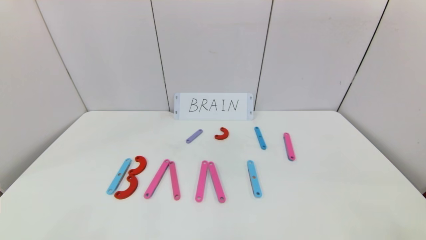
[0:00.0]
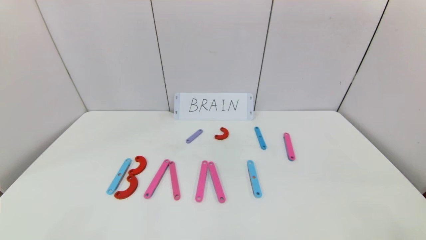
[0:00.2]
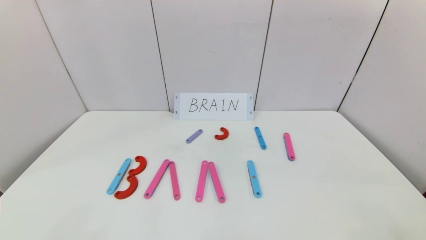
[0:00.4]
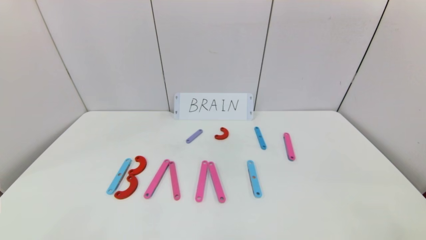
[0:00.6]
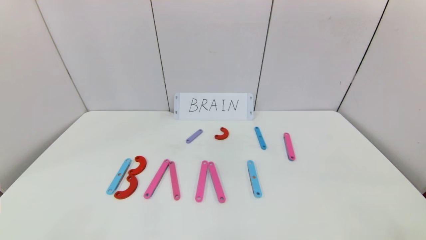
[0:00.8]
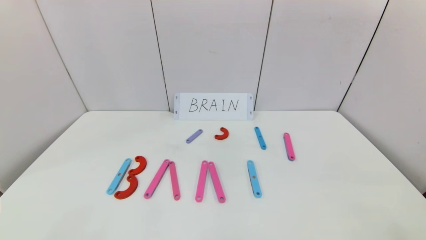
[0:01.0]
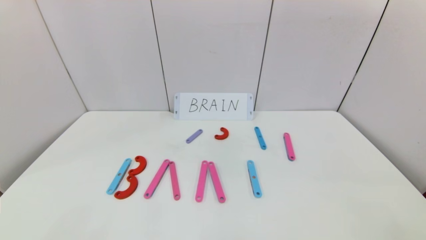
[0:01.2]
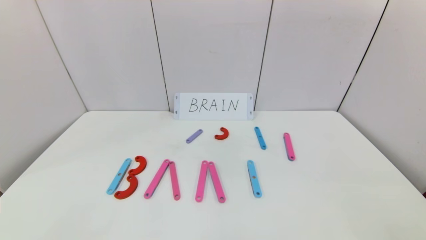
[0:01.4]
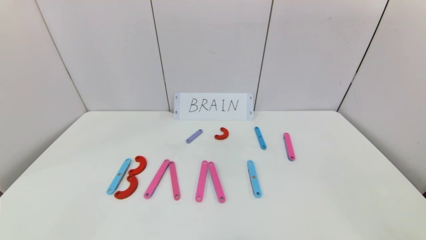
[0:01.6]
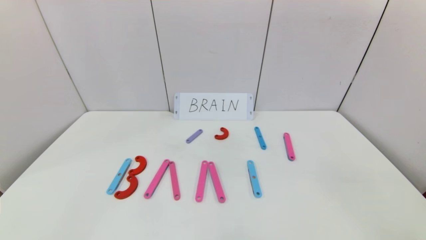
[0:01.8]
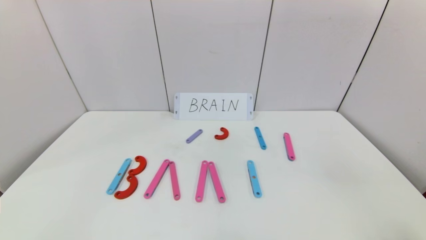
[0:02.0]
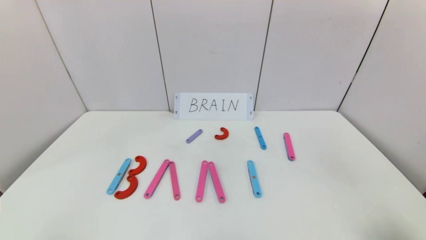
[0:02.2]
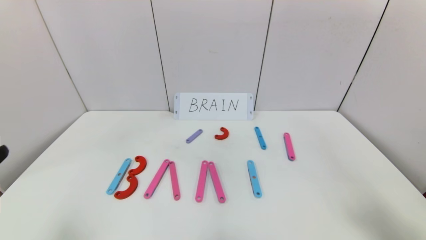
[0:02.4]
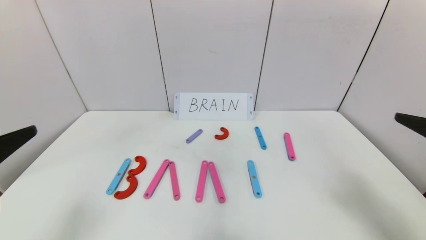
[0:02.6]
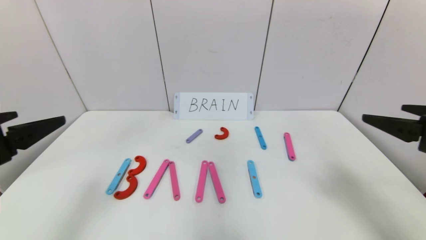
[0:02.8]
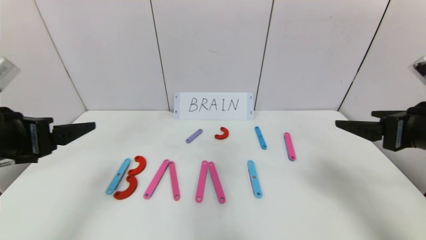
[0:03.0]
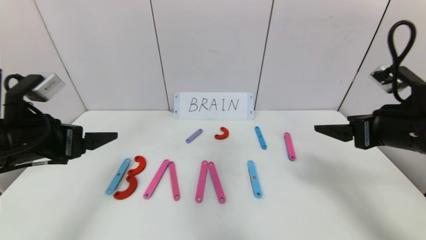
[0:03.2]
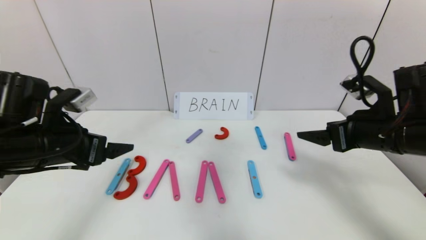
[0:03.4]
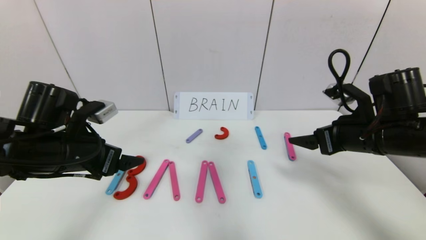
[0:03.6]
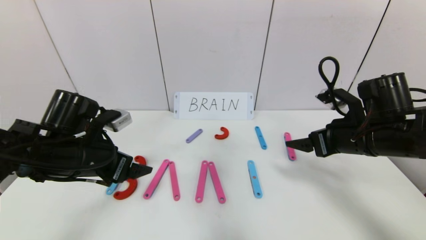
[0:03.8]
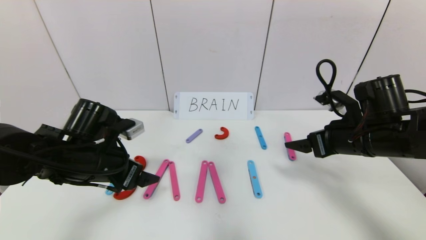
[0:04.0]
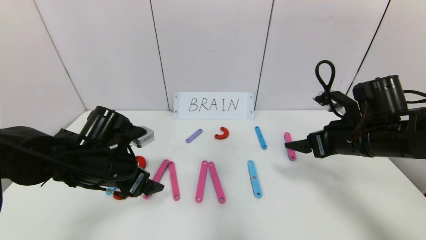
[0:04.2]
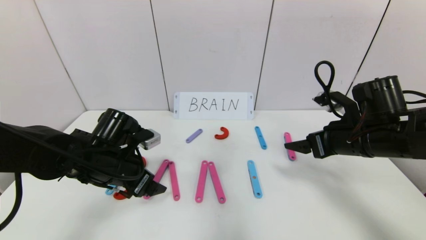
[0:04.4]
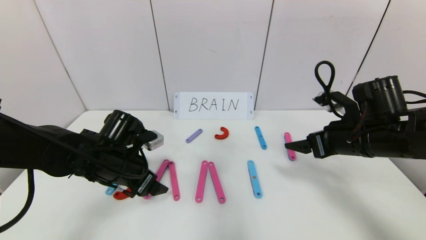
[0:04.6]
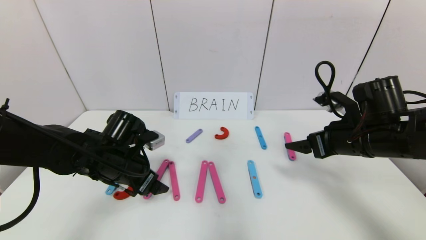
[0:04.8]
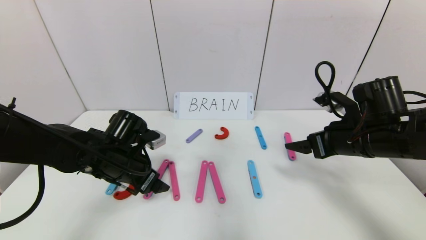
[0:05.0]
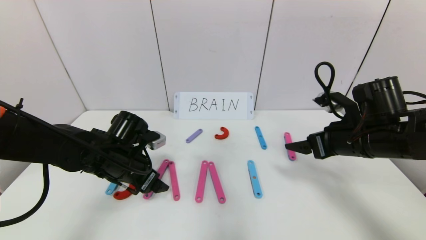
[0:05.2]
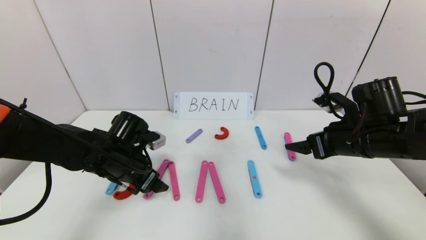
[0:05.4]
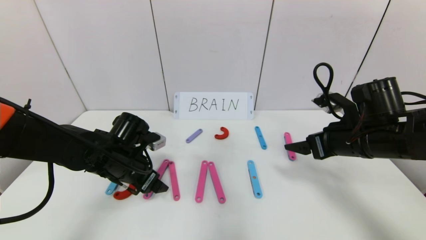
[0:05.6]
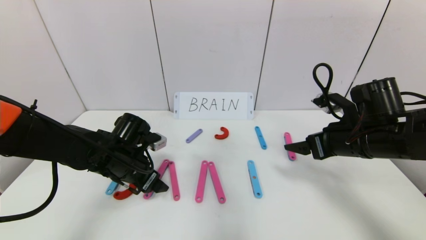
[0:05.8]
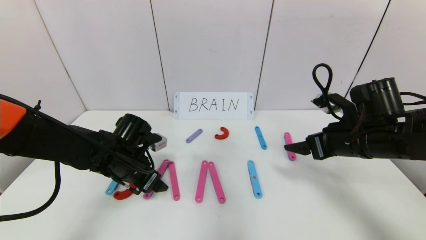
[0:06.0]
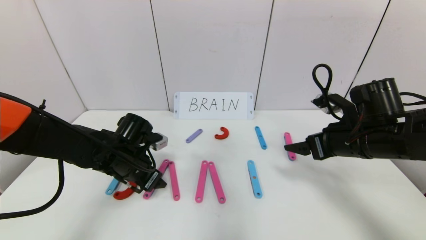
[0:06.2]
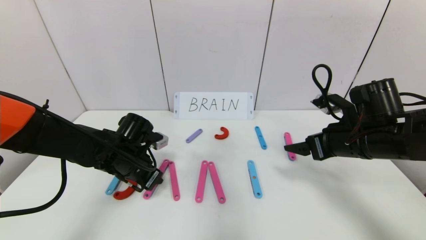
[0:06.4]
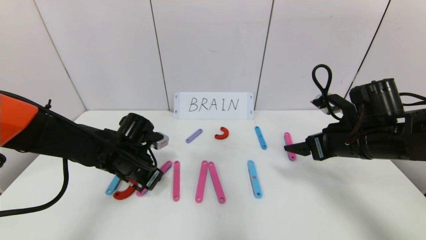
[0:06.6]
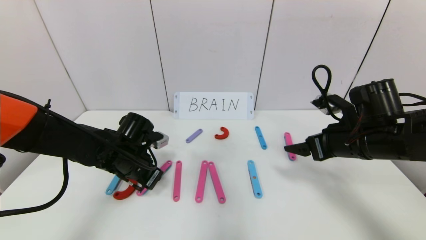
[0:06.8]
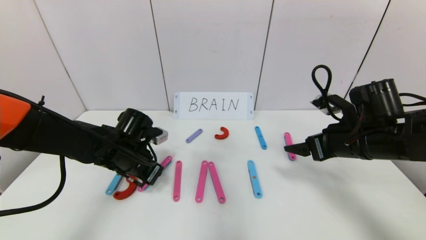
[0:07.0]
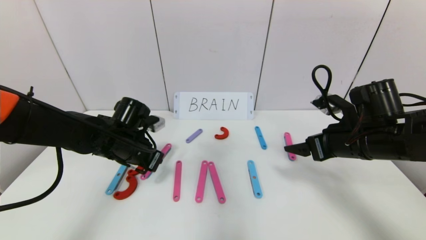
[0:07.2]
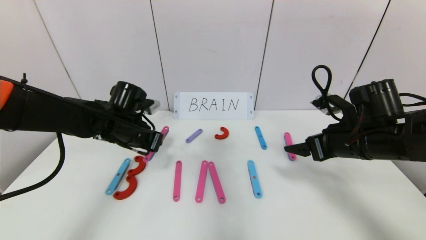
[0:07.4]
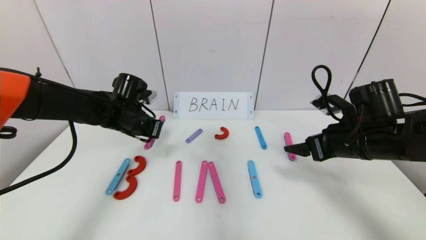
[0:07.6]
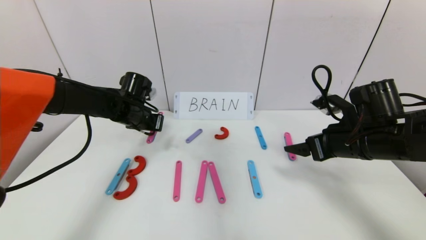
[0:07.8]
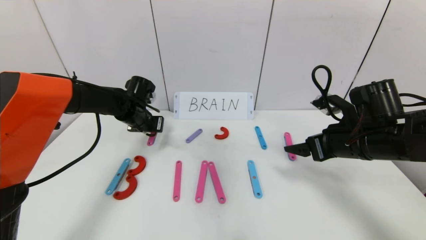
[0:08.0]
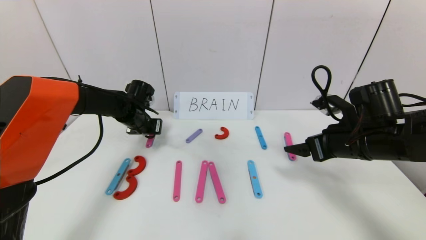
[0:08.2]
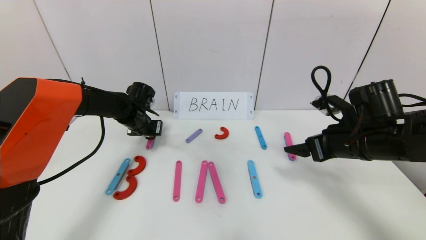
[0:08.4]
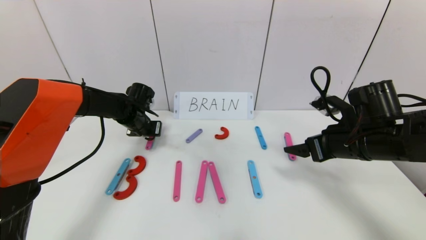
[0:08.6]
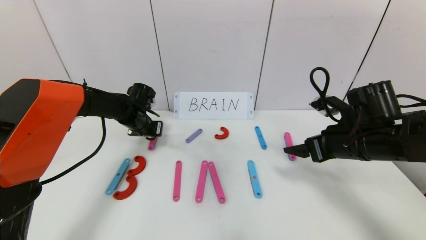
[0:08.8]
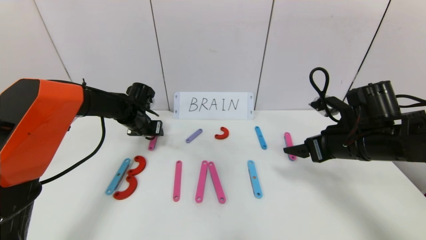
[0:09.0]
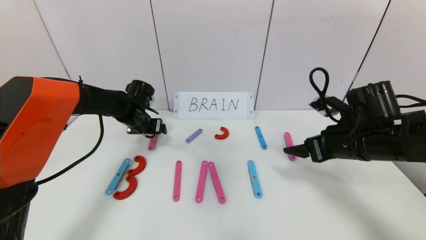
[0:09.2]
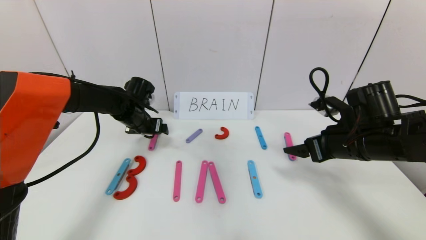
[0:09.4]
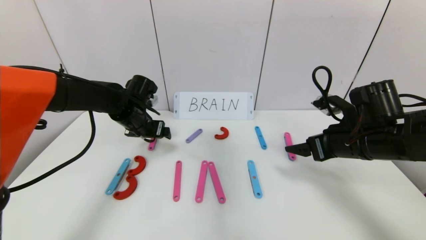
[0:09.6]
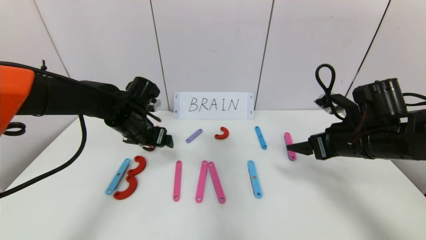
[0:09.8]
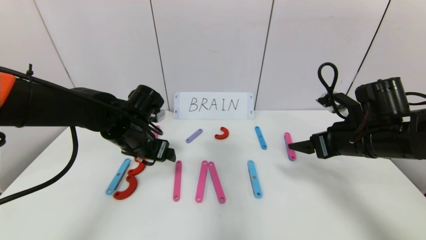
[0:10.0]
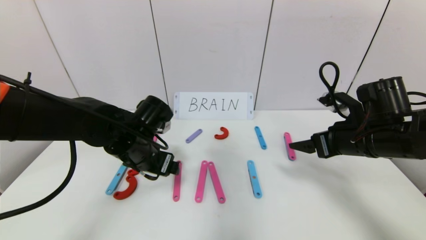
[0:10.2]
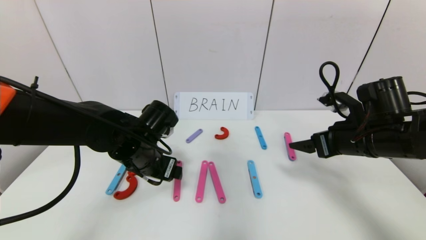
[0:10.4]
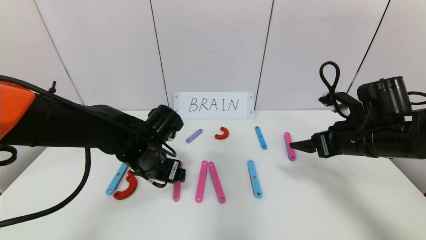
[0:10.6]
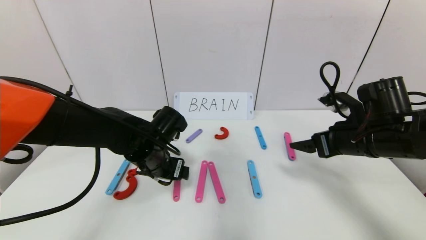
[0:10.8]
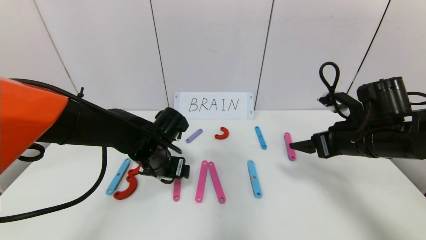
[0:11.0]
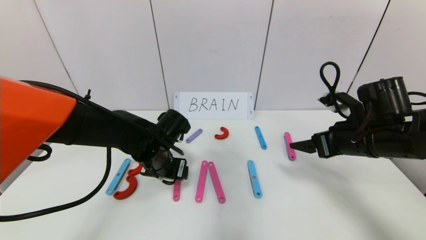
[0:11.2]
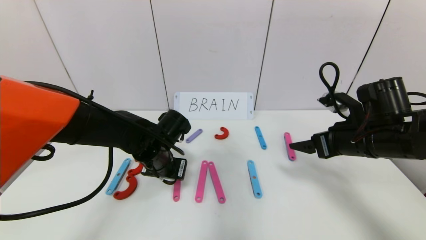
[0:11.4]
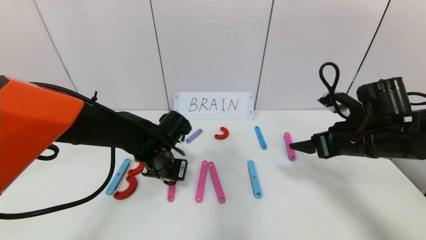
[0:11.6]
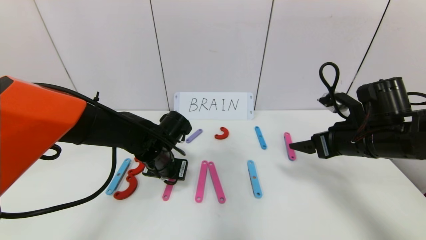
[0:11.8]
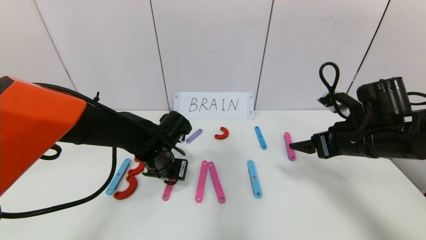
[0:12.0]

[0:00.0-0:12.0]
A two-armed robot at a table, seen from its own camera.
Task of the whole recording: rearrange the word baai as brain.
0:01.6 to 0:03.0: Both grippers move forward and upward, approximately 25 cm.
0:03.0 to 0:04.4: The left gripper is displaced downward, forward and to the right by some 20 cm. The right gripper is displaced forward and downward by roughly 10 cm.
0:04.4 to 0:06.0: The grippers move only a little.
0:06.0 to 0:07.6: The left gripper is displaced forward and upward by about 10 cm, and closes.
0:07.6 to 0:09.0: The left gripper moves forward, roughly 5 cm, and opens.
0:09.0 to 0:10.4: The left gripper shifts roughly 20 cm backward and to the right, and opens its fingers.
0:10.4 to 0:12.0: The left gripper changes place by about 5 cm, and closes its fingers.

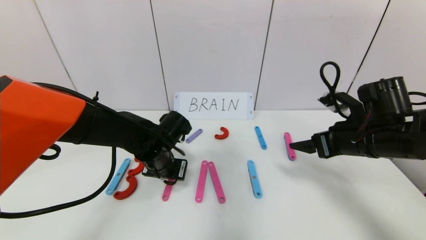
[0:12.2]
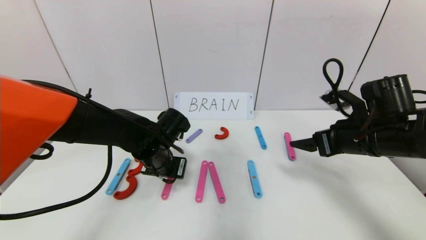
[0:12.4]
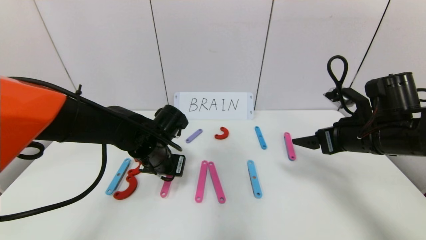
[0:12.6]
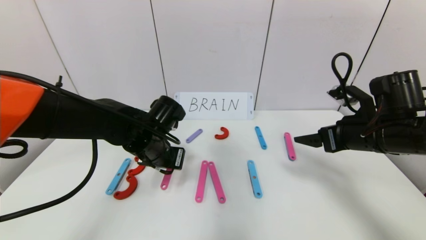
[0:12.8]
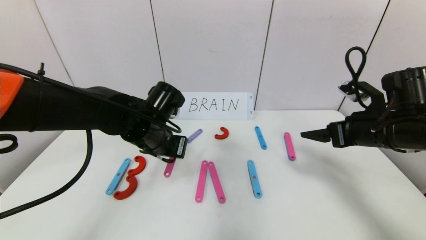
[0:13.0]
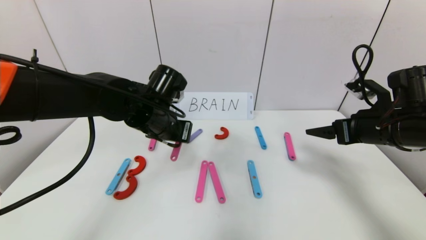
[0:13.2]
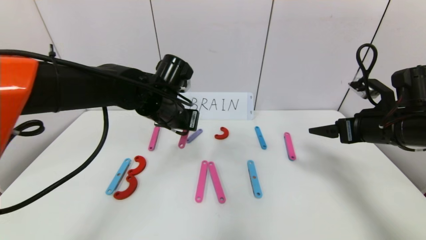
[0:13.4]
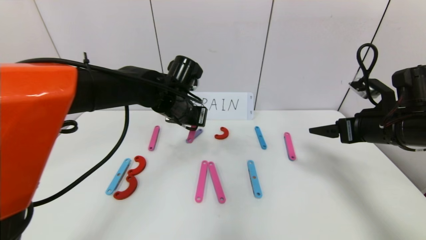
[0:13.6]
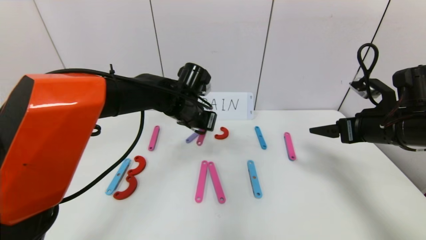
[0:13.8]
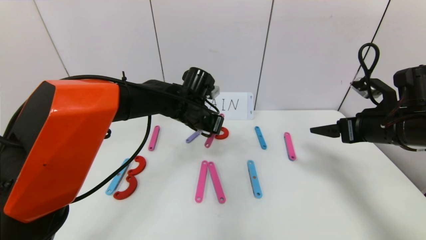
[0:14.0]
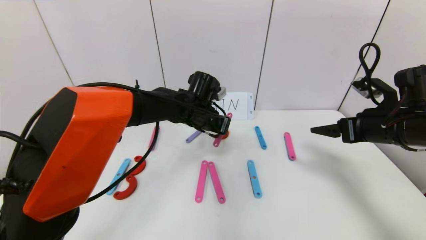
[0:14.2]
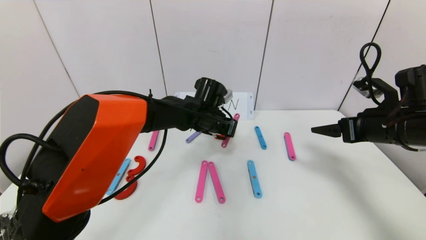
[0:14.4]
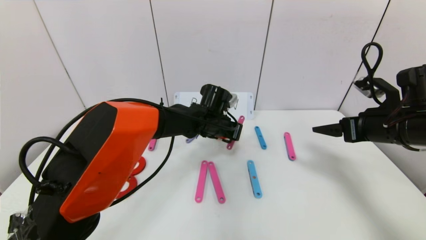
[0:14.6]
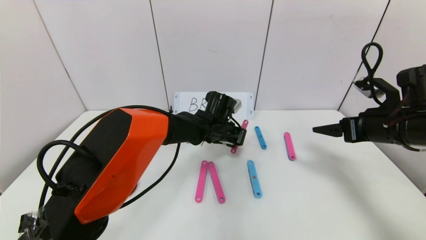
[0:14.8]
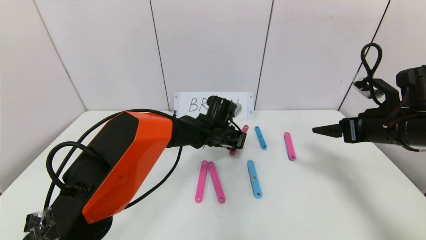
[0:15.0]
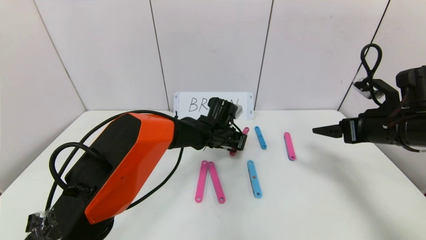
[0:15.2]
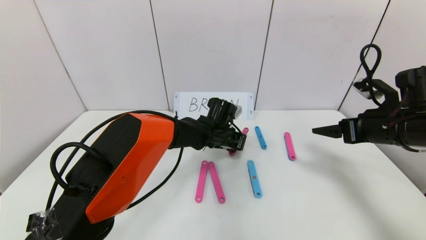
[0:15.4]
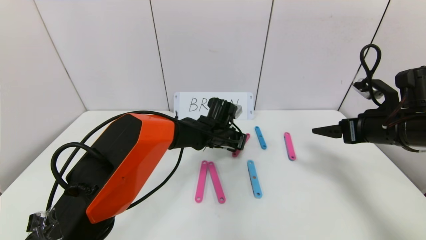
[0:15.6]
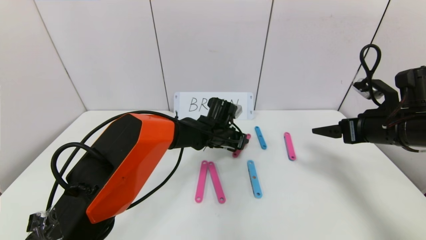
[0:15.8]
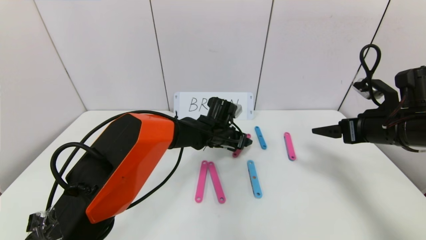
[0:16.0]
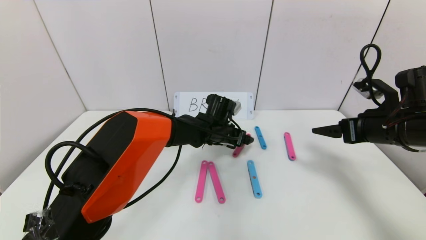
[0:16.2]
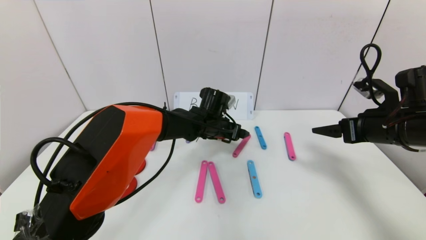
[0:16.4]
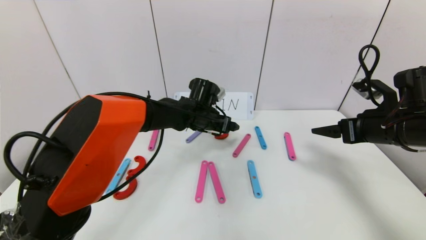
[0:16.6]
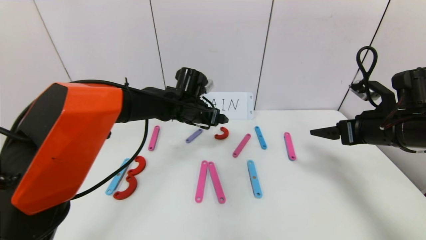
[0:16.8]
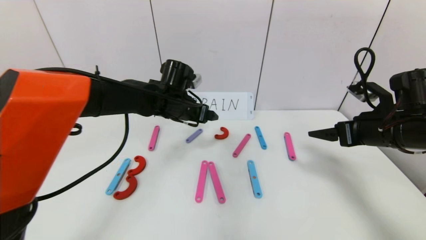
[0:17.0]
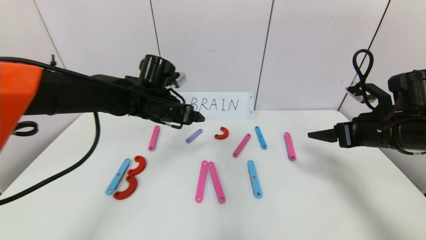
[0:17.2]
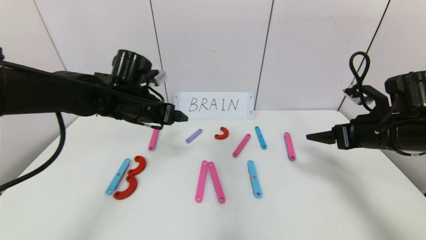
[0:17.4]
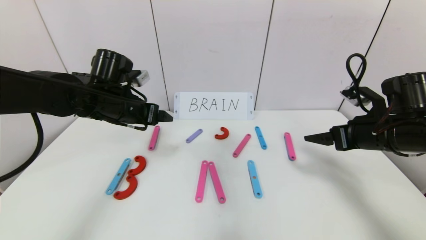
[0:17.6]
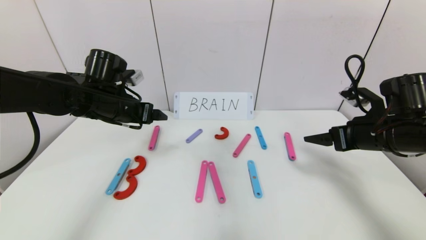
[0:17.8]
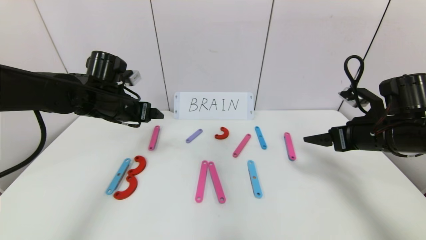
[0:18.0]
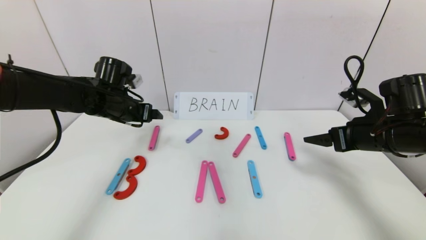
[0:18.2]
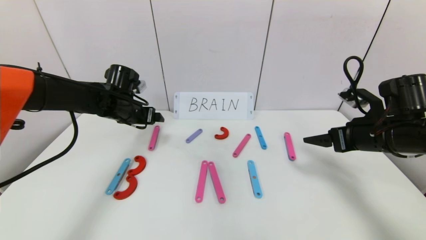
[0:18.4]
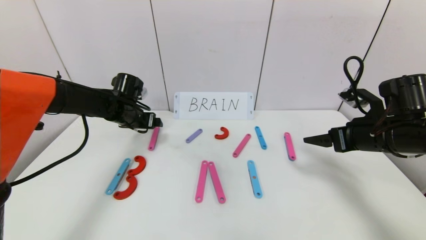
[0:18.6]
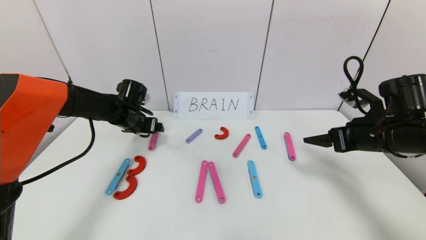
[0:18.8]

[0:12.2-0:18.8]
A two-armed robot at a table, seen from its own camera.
Task of the whole recording: rearrange the word baai as brain.
Step, 0:12.2 to 0:16.2: Disassemble the second character A.
0:12.2 to 0:13.8: The right gripper changes place by some 5 cm. Meanwhile the left gripper travels upward, forward and to the right by some 10 cm.
0:13.8 to 0:15.4: The left gripper shifts roughly 10 cm downward and to the right.
0:15.4 to 0:17.2: The left gripper moves to the left and upward, about 20 cm, and opens its fingers.
0:17.2 to 0:18.8: The left gripper is displaced to the left, downward and forward by roughly 15 cm.
